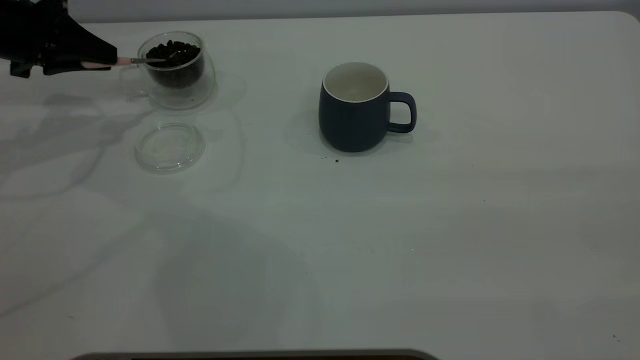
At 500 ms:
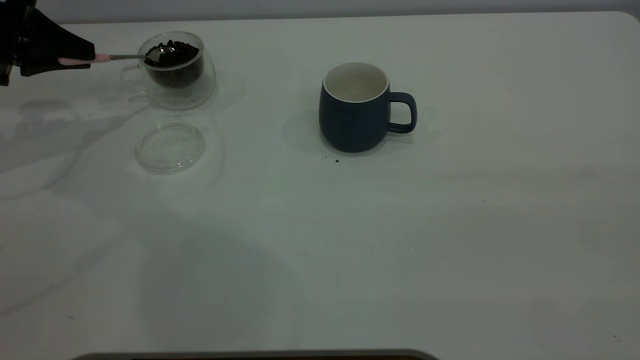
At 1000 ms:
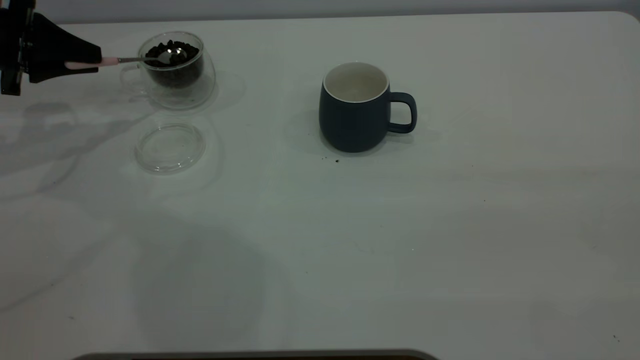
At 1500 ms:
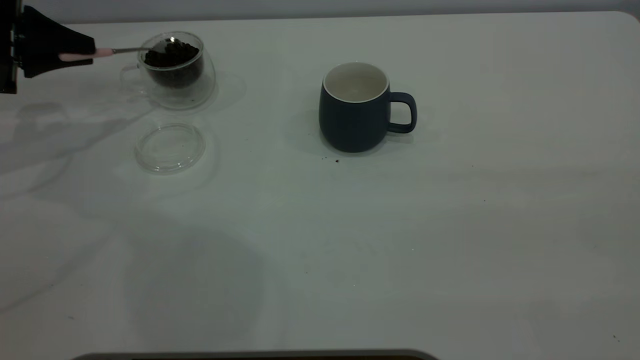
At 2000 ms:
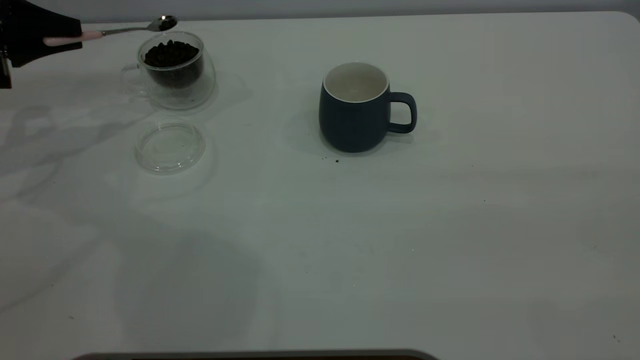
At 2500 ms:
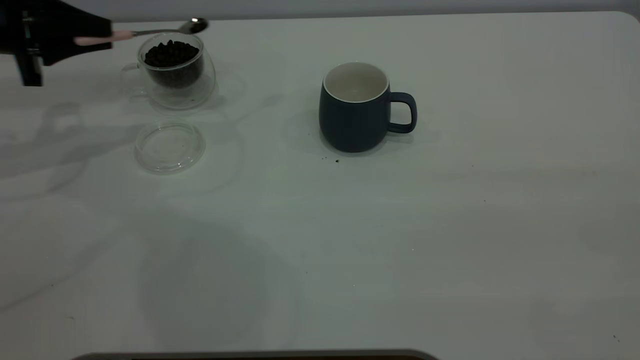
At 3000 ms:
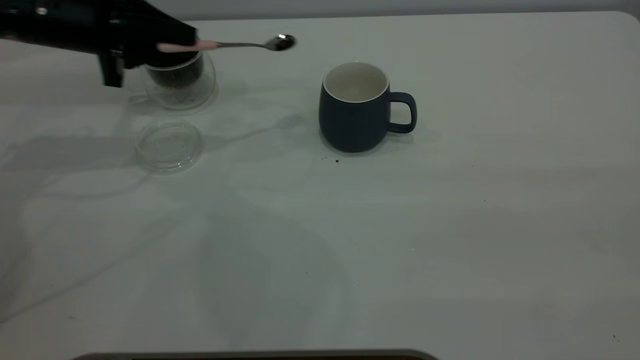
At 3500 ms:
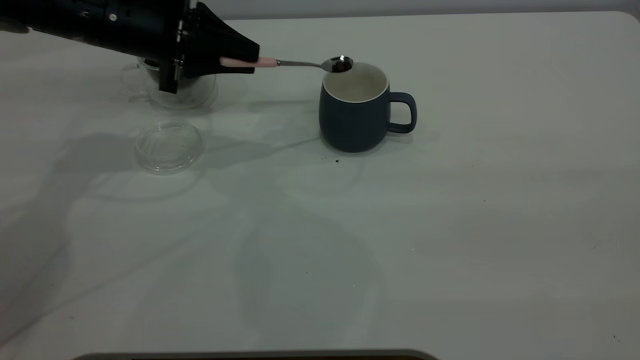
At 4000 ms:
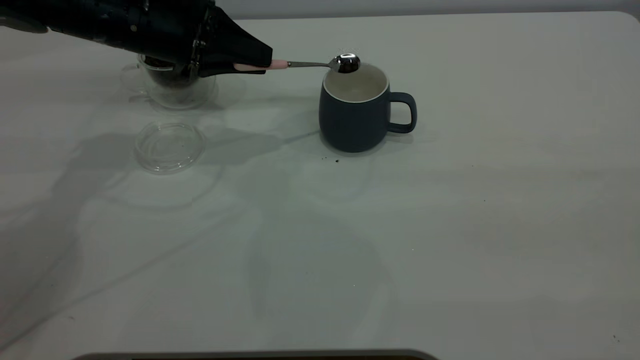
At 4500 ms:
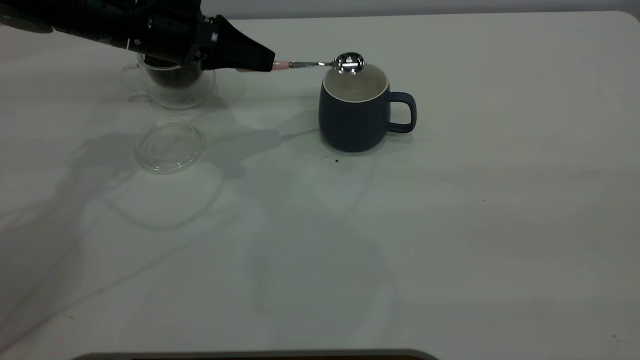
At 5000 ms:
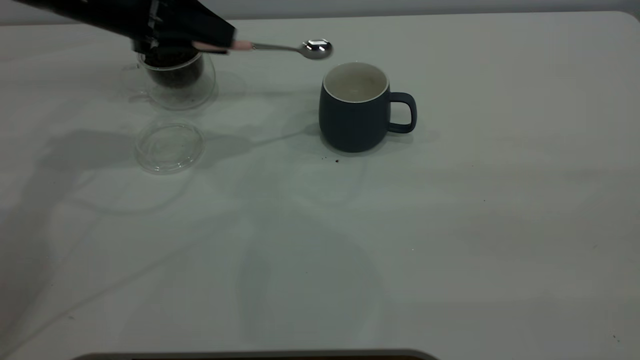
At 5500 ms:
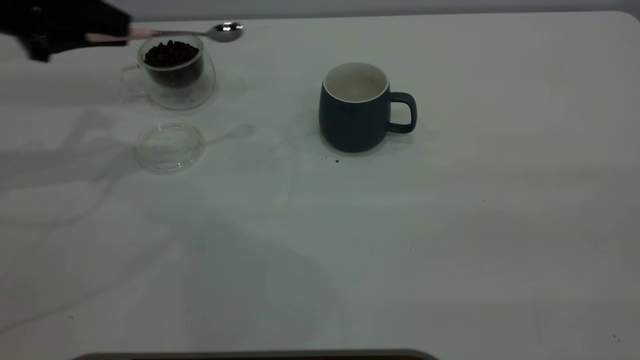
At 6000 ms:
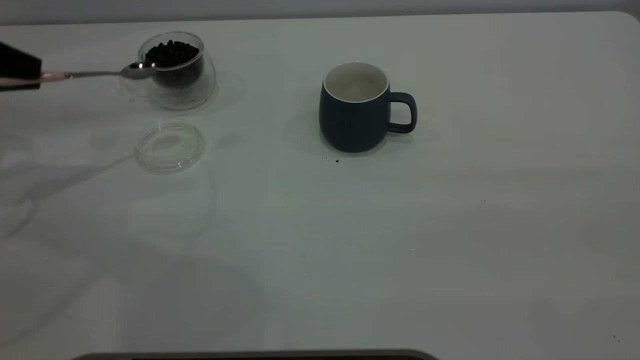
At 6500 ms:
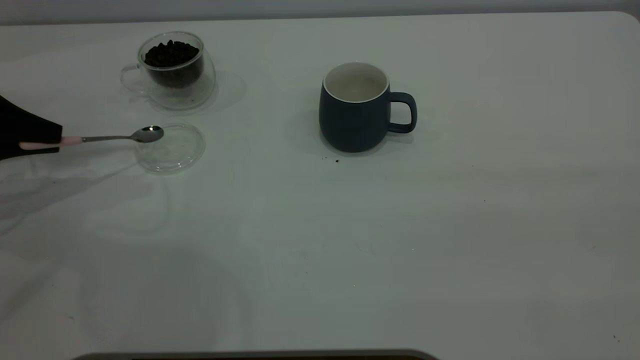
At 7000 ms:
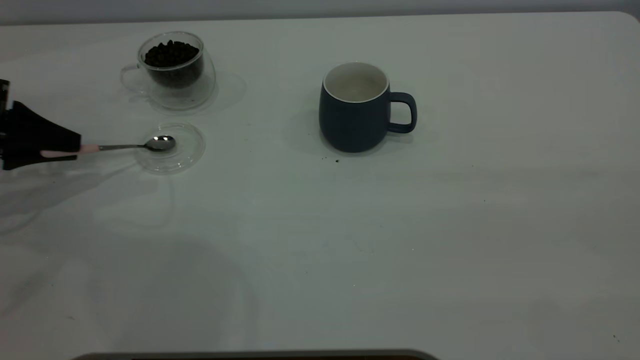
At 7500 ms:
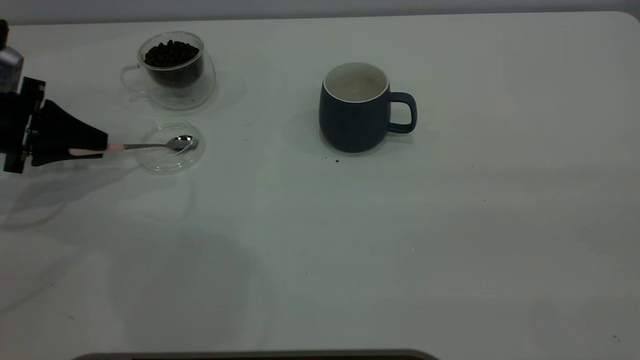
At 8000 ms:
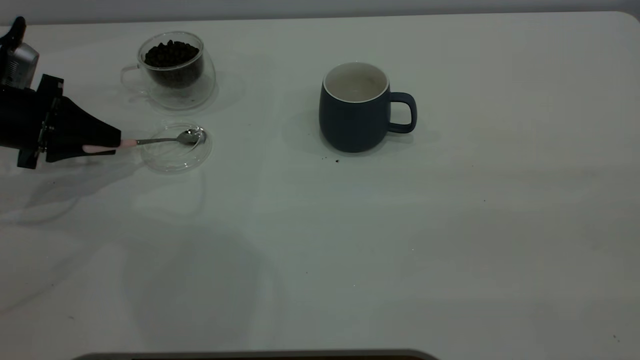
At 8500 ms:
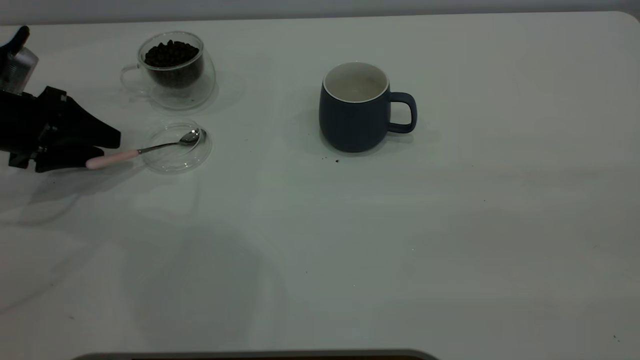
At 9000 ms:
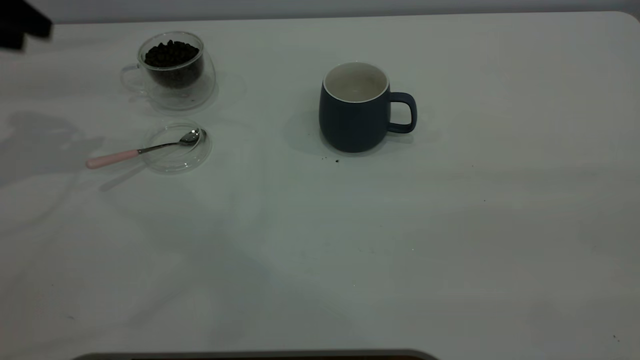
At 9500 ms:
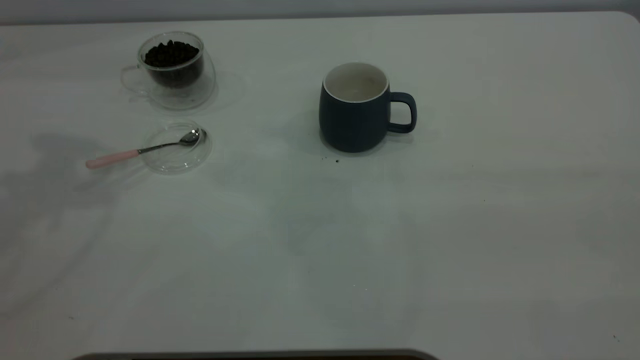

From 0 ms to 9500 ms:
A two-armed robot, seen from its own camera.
Task of the whole recording: the right gripper place the grey cup in the center of the table, the left gripper take the pink spoon from the cup lid and scoop out the coffee beans from the coffee cup and put them into the grey cup, the left gripper put the spoon back into the cup lid.
Step, from 0 ms to 4500 ms: Scoop a spoonful of beans into the cup.
Step, from 5000 ms to 8500 ms: Place the spoon back in its original place.
From 2000 ms to 4000 ms: The left gripper goes some 20 cm to the right.
From 4000 ms to 5500 ms: The left gripper is displaced to the left by some 15 cm.
From 5500 ms to 7500 ms: The left gripper is displaced downward by about 10 cm.
From 7500 ms to 9500 ms: The left gripper is displaced upward by approximately 30 cm, and opens its fingers.

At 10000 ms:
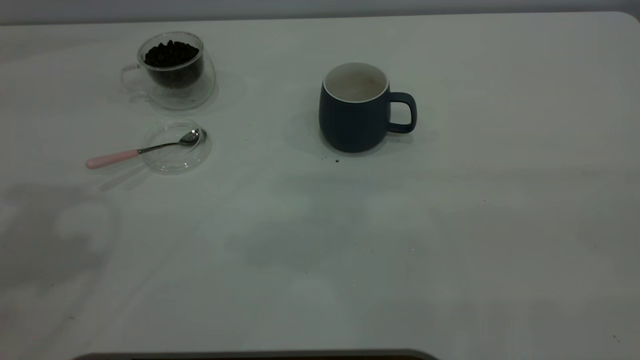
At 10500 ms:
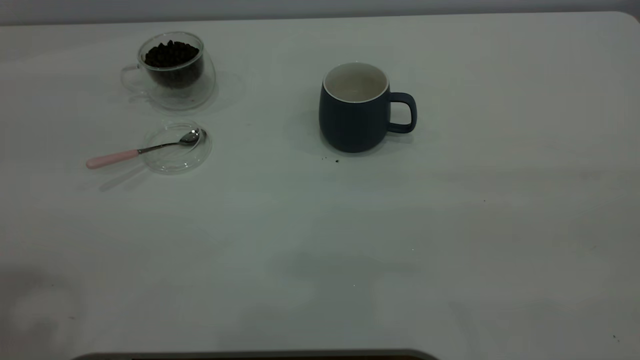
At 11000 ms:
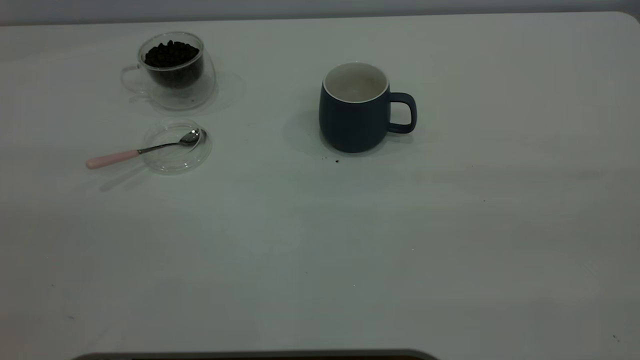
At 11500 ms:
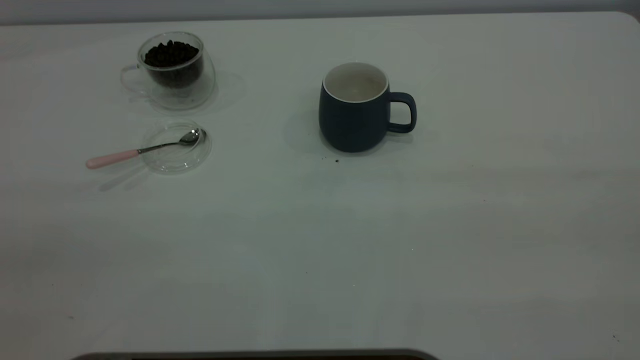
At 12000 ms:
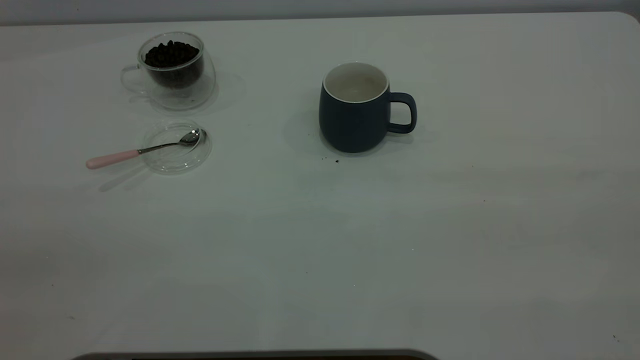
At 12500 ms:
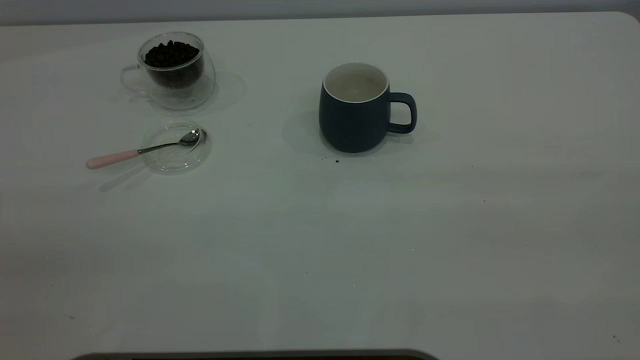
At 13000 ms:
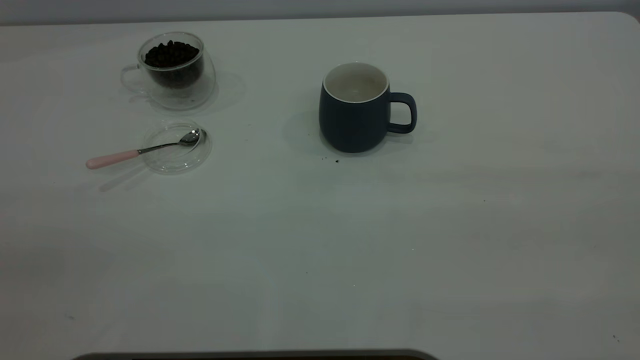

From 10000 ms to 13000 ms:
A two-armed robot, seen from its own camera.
Task of the whole recording: the right gripper place the grey cup in the center of the table, the left gripper take the pink spoon from the cup lid and scoop out the coffee beans from the coffee cup and put them into the grey cup, the left gripper put the spoon back into the cup lid.
From 11500 ms to 13000 ms: The two grippers keep their place.
